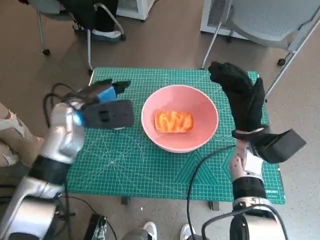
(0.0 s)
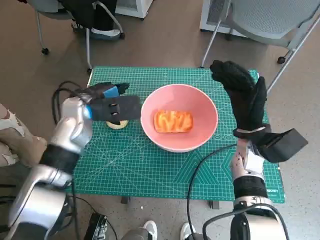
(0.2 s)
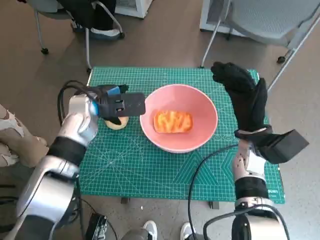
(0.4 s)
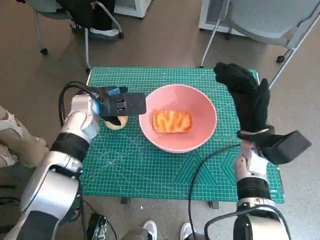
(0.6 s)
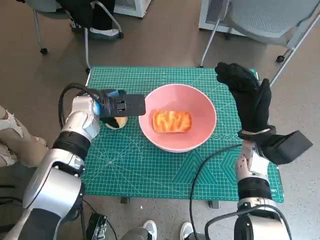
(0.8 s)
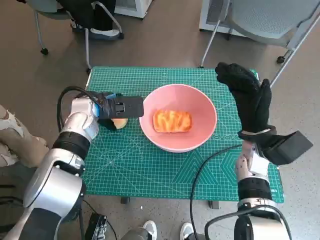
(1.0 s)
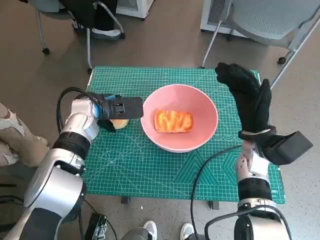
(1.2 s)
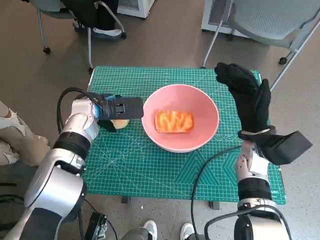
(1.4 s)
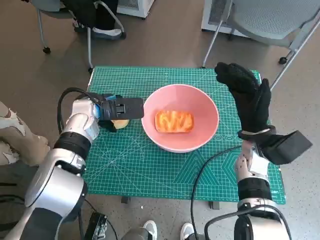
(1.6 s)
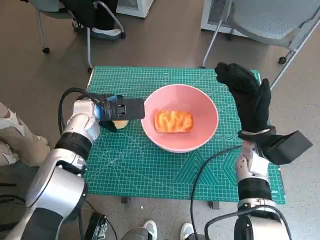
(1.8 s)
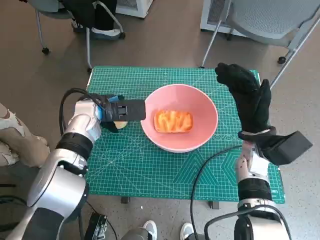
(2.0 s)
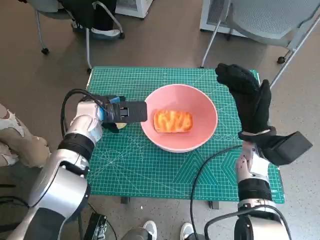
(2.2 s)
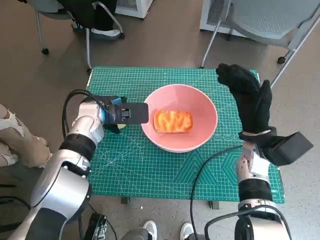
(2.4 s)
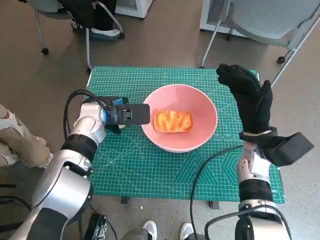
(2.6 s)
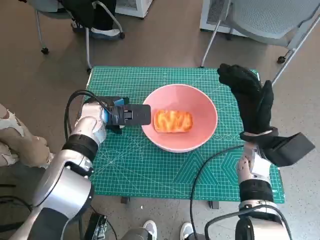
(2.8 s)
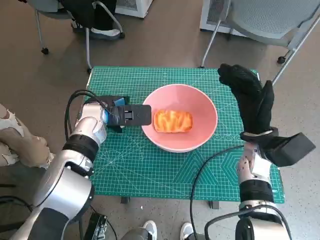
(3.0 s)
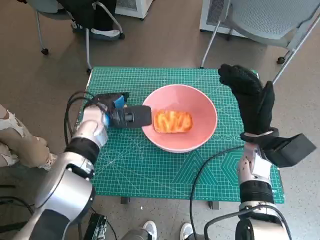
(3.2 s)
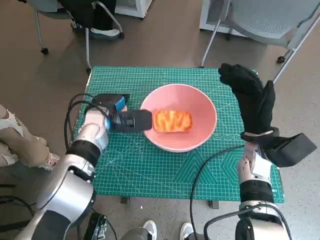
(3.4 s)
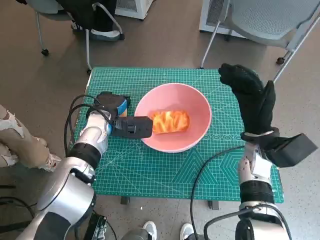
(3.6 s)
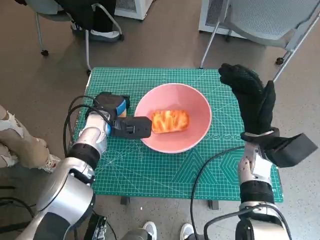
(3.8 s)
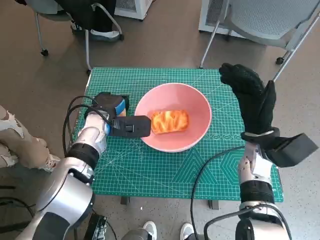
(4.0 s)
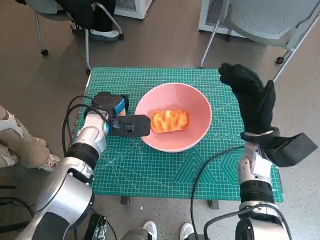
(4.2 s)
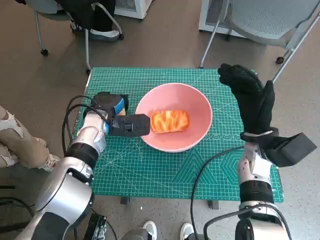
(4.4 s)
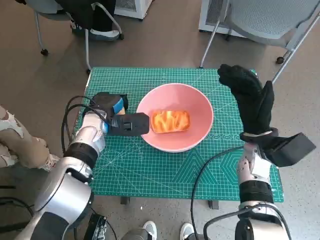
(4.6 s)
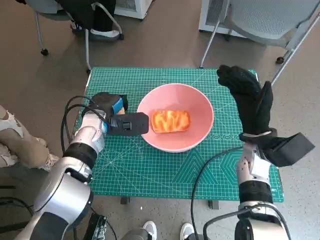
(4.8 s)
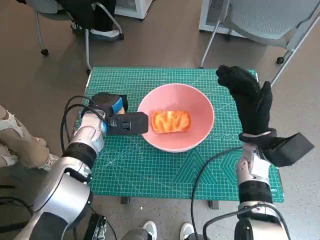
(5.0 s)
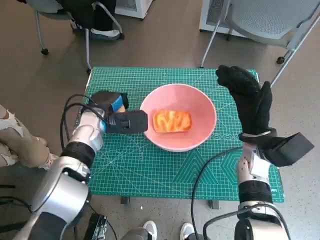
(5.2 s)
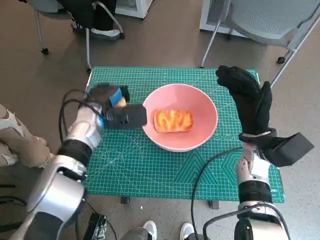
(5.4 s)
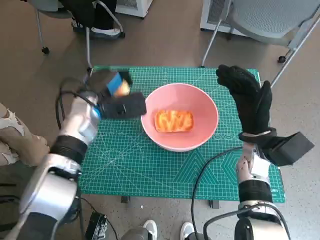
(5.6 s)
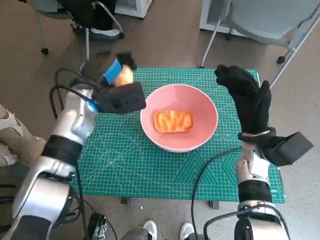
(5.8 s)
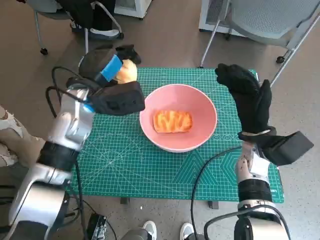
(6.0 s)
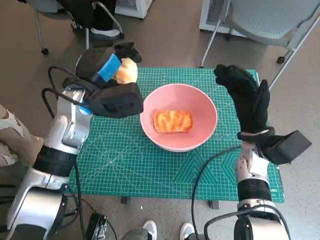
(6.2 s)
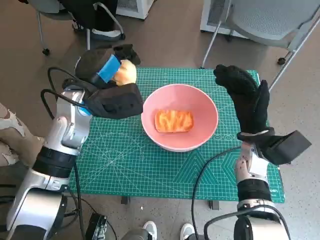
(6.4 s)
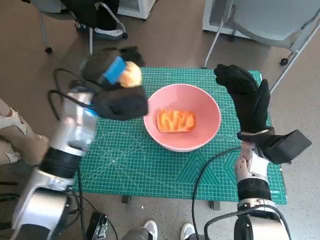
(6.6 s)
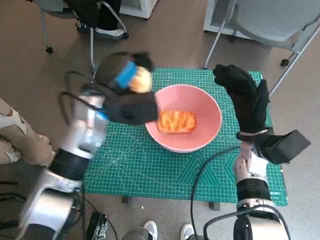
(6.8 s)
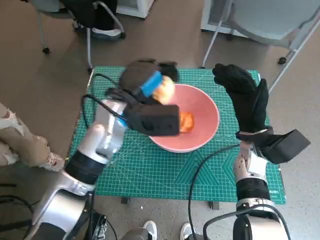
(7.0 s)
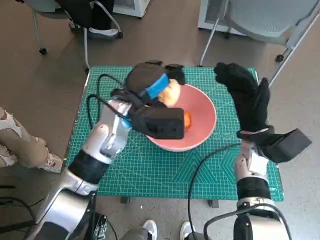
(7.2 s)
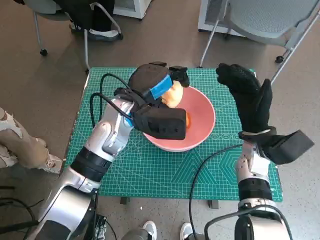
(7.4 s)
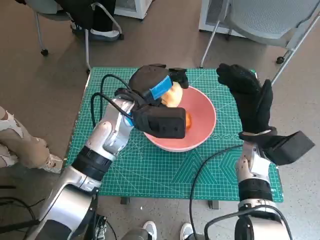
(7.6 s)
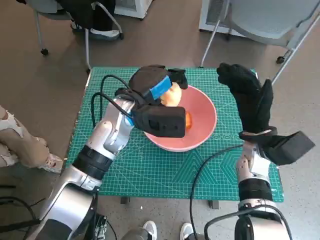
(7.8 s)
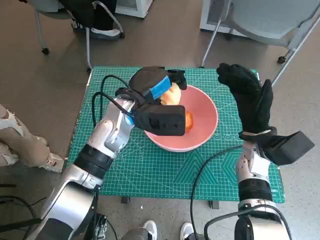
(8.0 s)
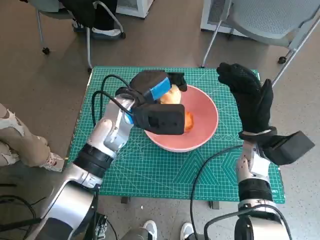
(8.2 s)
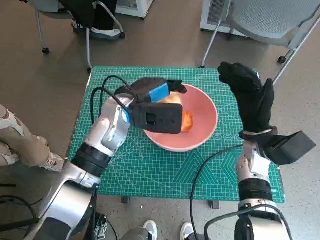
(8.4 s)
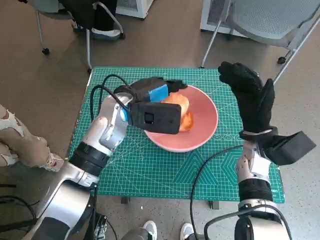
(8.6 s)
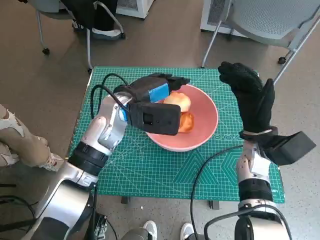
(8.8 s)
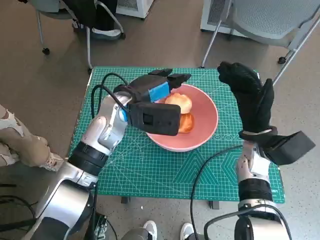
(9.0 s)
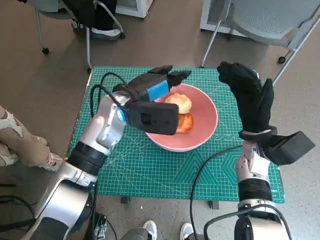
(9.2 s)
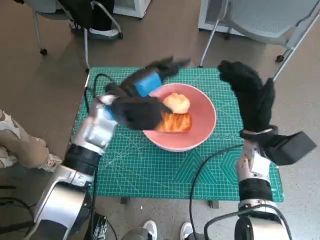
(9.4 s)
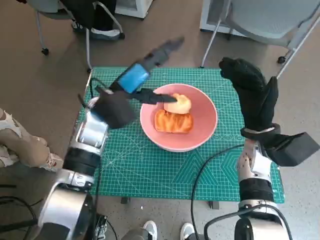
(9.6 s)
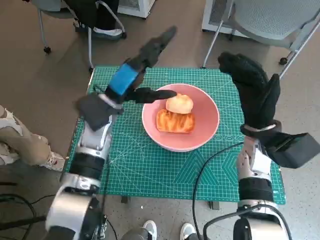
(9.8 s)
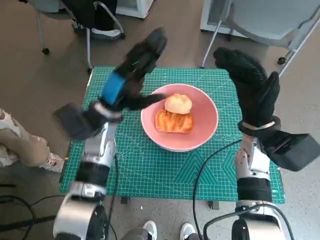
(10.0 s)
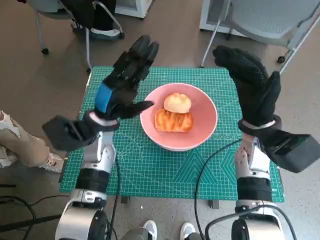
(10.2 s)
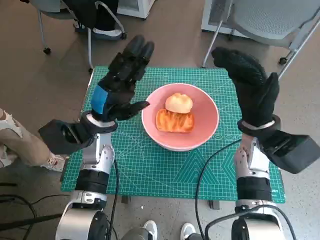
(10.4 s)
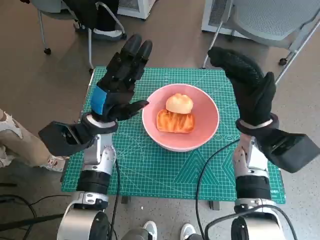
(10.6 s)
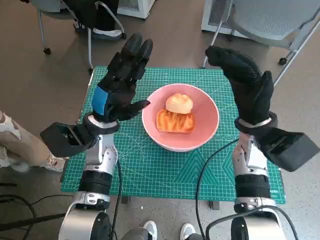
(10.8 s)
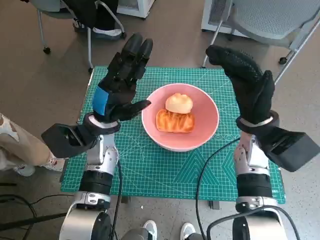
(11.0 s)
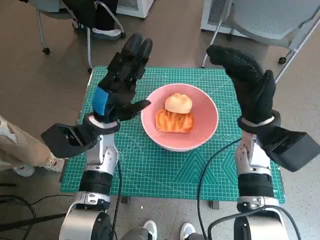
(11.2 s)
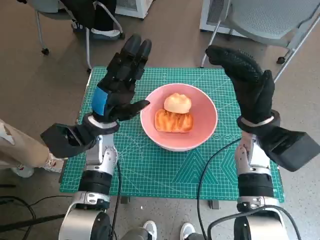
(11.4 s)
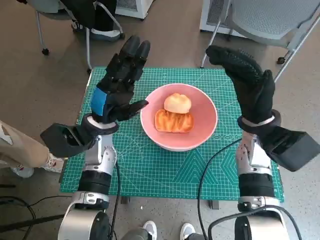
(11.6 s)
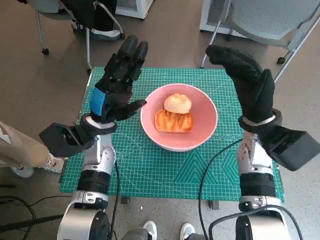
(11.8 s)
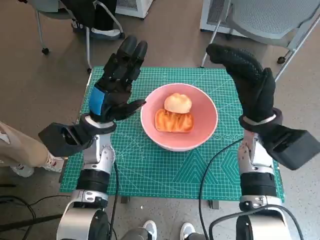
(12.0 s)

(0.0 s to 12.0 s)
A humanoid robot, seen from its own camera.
Step, 0.0 s - 3.6 s: Grasp the round bread with left hand.
Step, 3.8 s - 8.6 s: Place the round bread in pink bowl with left hand.
0.0 s - 1.6 s: The left hand moves about 5 cm.
1.6 s - 3.0 s: The hands move only a little.
3.0 s - 4.4 s: The hands move only a little.
4.4 s - 6.0 s: The left hand is displaced upward by about 10 cm.
6.0 s - 7.6 s: The left hand is displaced to the right by approximately 10 cm.
9.0 s - 10.4 s: The left hand is displaced to the left and downward by about 10 cm.
10.4 s - 12.0 s: The hands stay close to where they were, moving slightly.

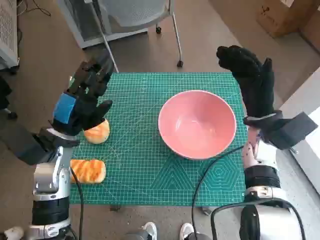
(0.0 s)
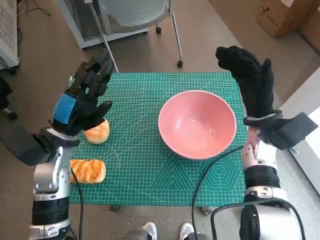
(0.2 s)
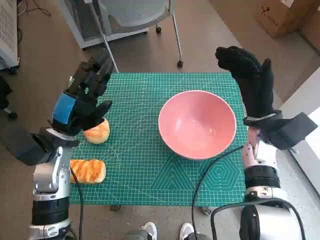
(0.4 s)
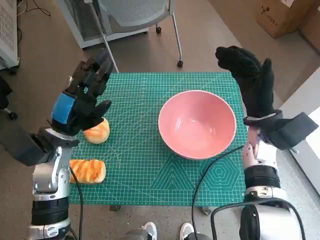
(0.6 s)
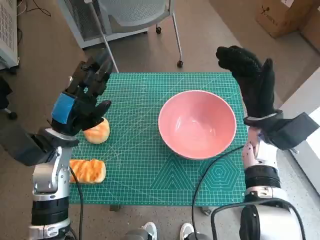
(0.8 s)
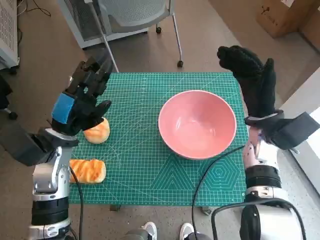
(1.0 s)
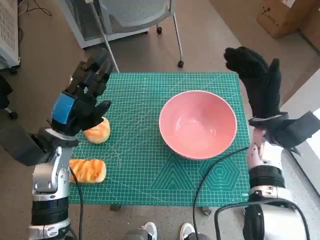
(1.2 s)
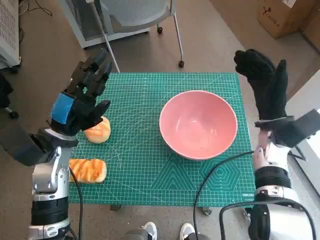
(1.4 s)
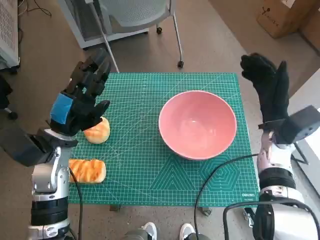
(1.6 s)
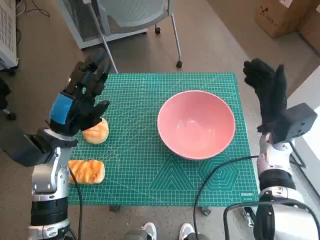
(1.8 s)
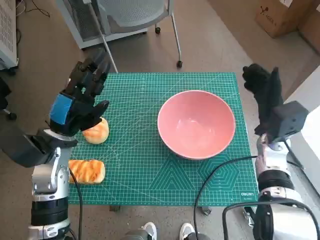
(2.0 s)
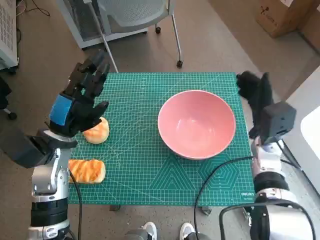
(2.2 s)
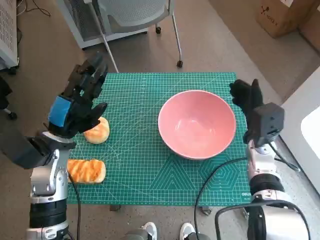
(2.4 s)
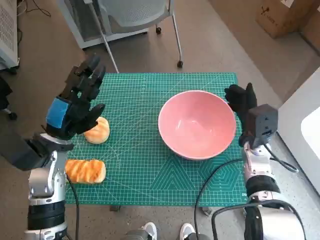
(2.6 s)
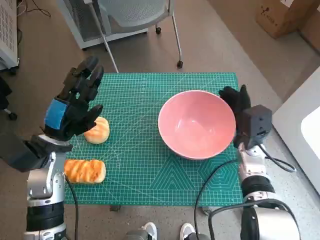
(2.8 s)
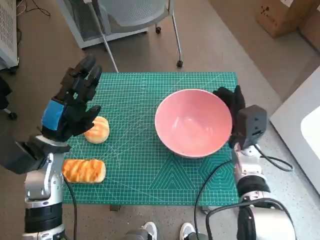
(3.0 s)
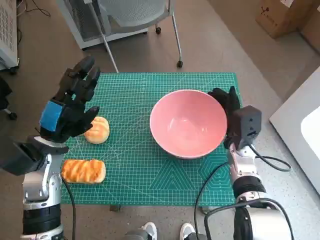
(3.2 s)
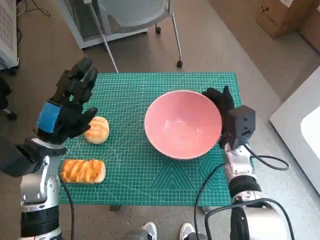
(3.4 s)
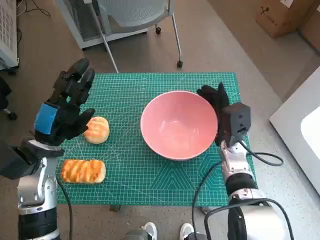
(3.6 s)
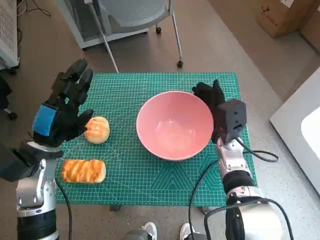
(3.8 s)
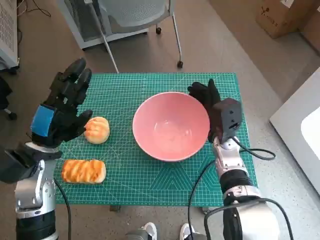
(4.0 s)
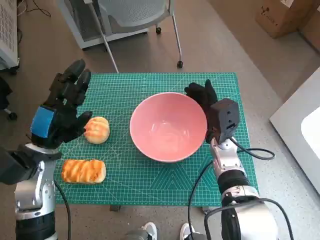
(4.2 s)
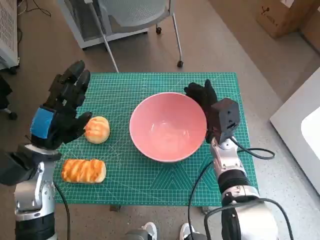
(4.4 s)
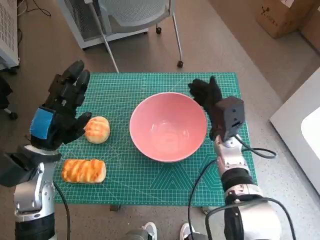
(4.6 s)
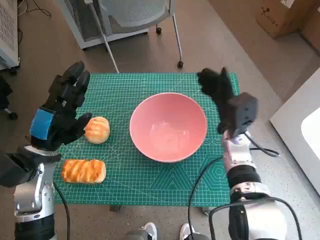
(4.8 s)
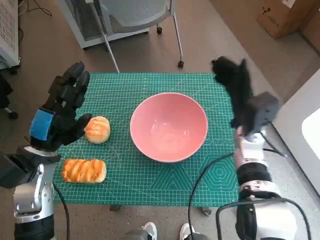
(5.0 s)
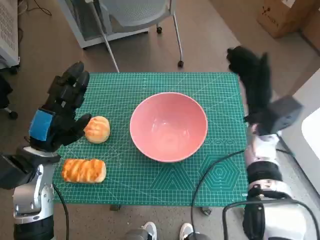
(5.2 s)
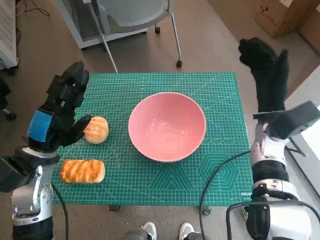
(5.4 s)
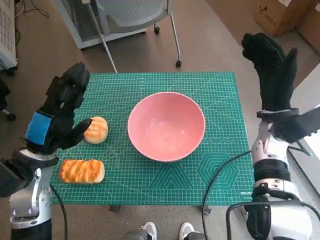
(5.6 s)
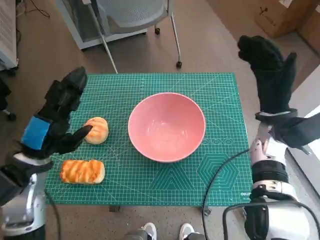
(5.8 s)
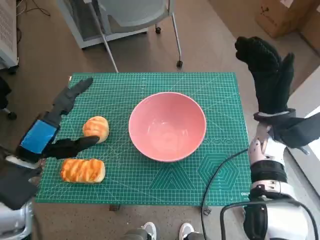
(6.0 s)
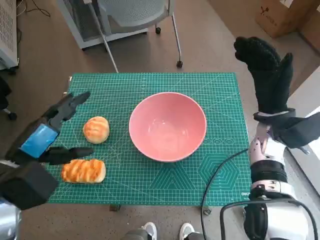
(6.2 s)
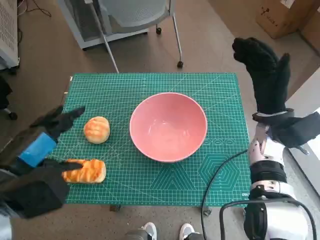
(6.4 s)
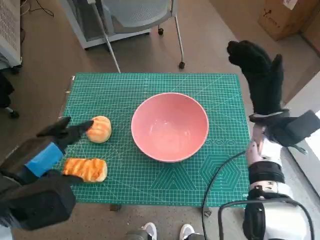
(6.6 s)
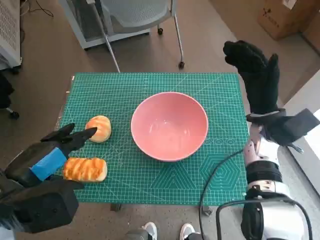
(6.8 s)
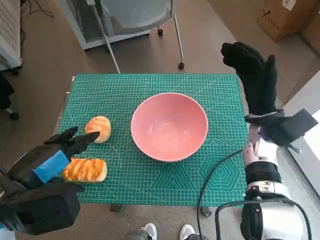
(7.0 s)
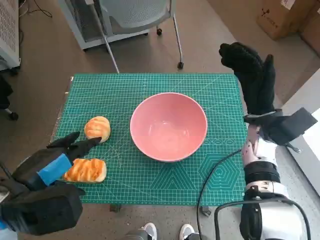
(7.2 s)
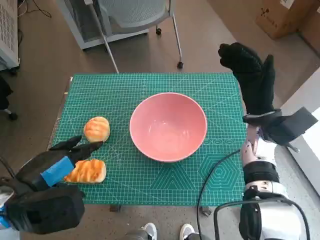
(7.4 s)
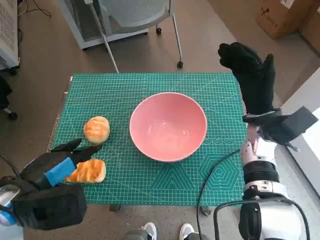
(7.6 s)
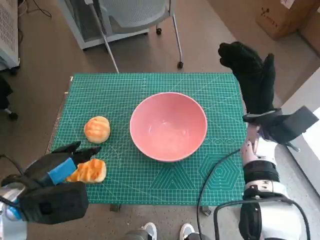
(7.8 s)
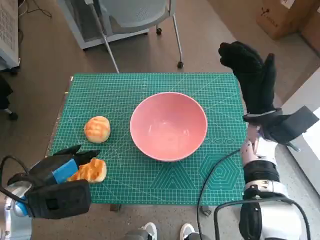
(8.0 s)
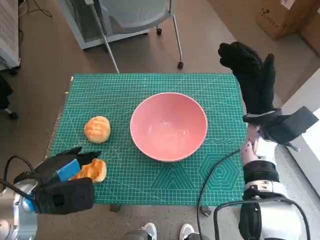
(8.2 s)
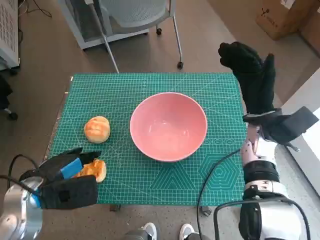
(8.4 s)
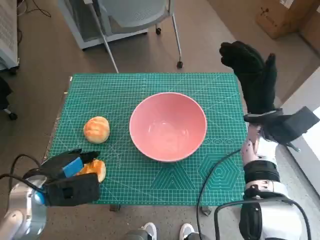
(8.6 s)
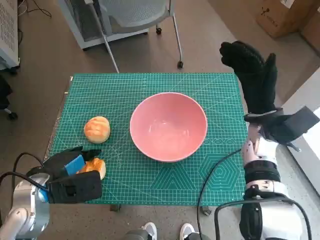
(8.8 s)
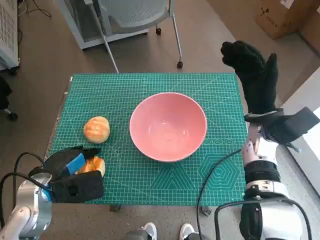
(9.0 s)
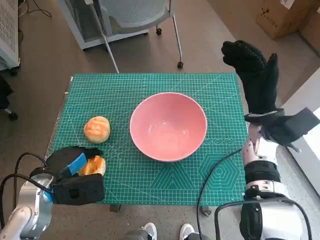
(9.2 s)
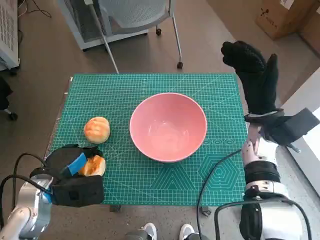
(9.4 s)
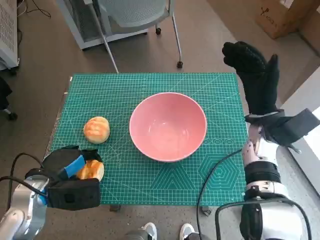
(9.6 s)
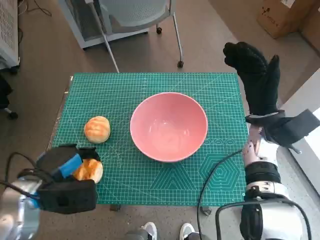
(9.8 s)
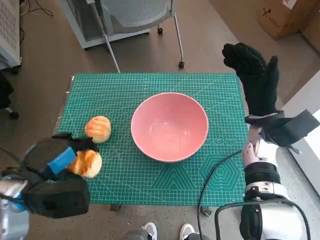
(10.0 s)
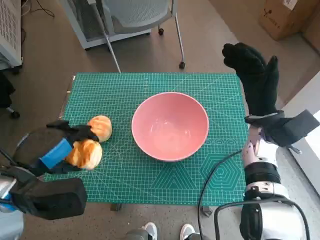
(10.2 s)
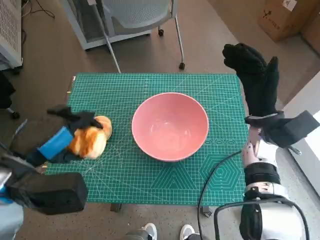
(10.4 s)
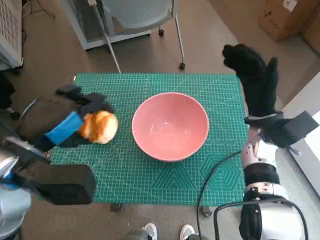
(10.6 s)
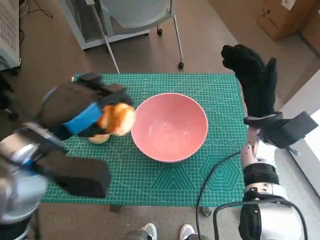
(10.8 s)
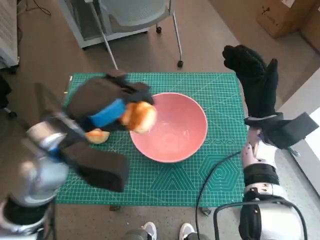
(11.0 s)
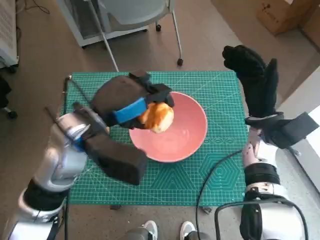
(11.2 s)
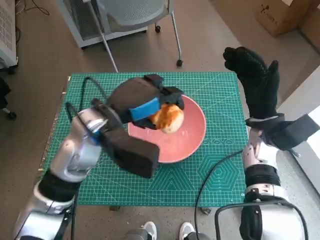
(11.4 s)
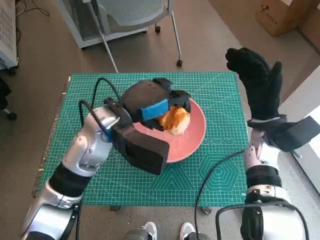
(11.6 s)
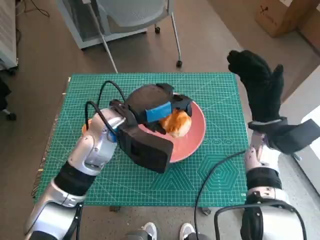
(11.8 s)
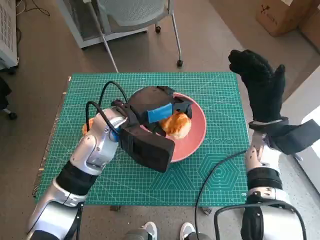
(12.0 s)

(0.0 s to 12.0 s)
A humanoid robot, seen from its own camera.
Step, 0.0 s - 4.6 s: Move the pink bowl to the center of table with right hand.
Step, 4.8 s - 9.0 s: Grasp the long bread with left hand.
1.6 s - 3.0 s: The right hand travels downward by about 5 cm.
3.0 s - 4.4 s: The right hand goes about 5 cm to the left.
4.4 s - 6.0 s: The right hand shifts roughly 10 cm to the right and upward.
7.6 s - 9.0 s: The left hand moves downward, approximately 10 cm.
9.0 s - 10.4 s: The left hand travels upward by about 10 cm.
10.4 s - 12.0 s: The left hand moves to the right and forward, about 20 cm.
